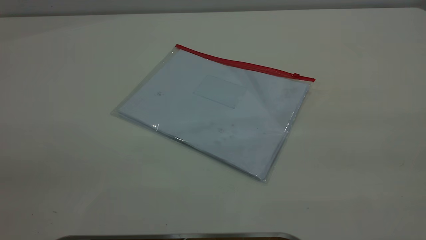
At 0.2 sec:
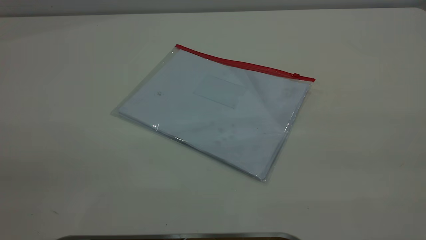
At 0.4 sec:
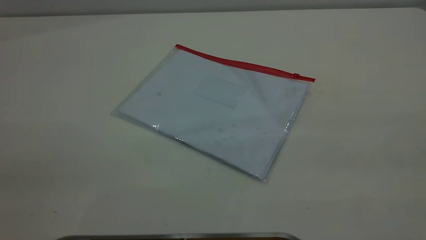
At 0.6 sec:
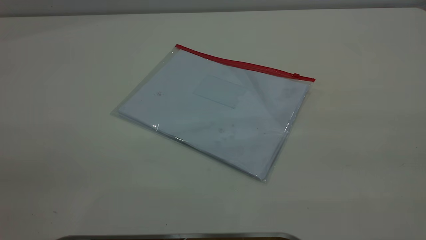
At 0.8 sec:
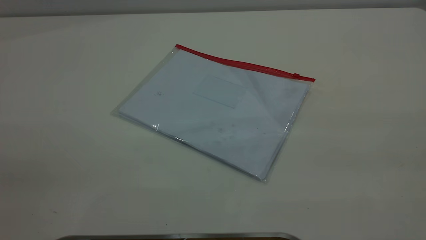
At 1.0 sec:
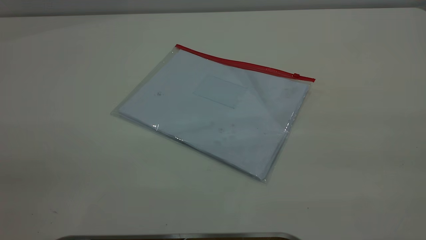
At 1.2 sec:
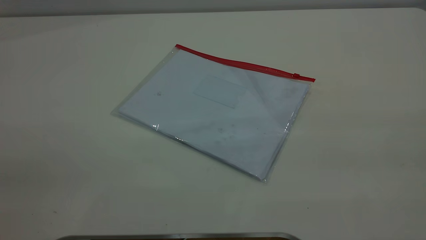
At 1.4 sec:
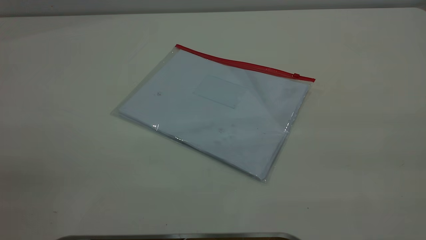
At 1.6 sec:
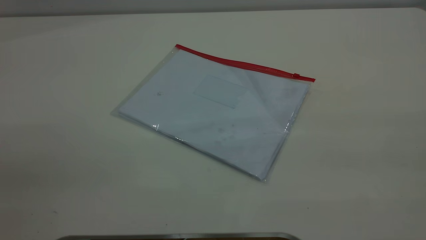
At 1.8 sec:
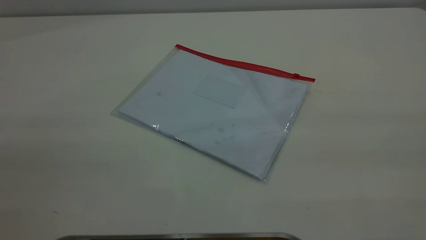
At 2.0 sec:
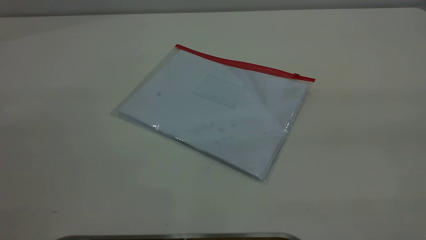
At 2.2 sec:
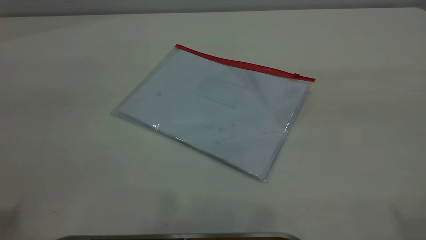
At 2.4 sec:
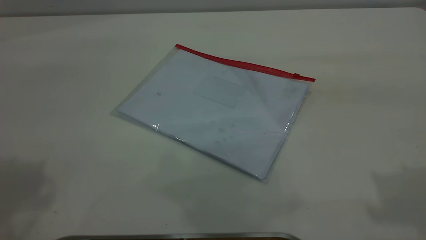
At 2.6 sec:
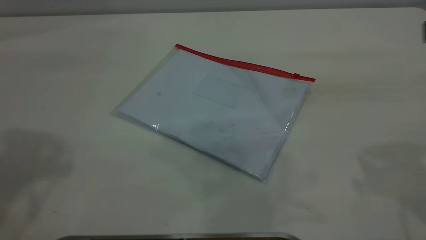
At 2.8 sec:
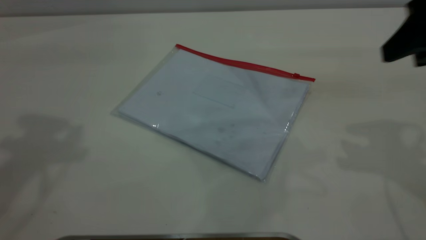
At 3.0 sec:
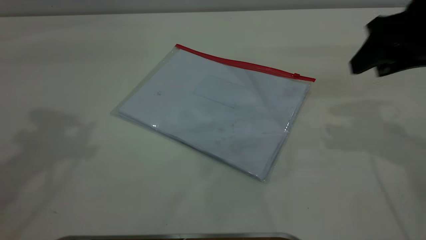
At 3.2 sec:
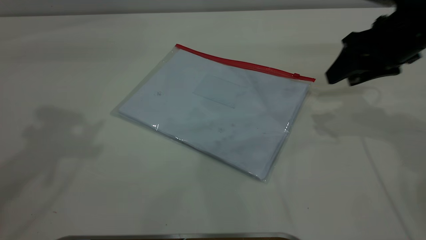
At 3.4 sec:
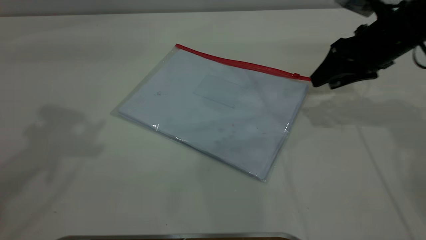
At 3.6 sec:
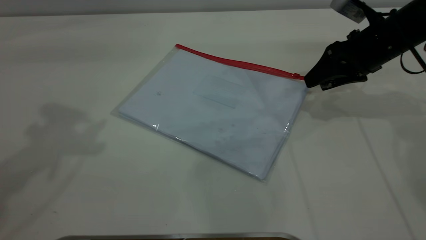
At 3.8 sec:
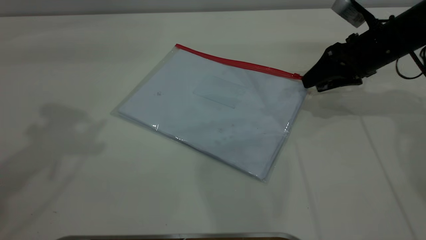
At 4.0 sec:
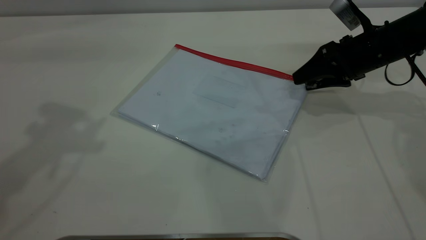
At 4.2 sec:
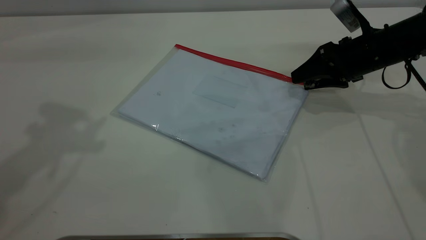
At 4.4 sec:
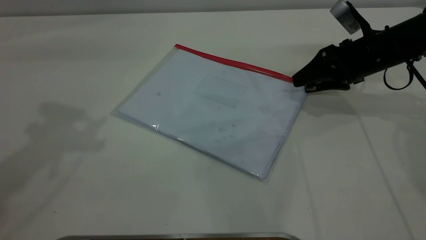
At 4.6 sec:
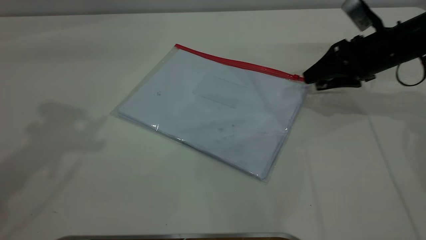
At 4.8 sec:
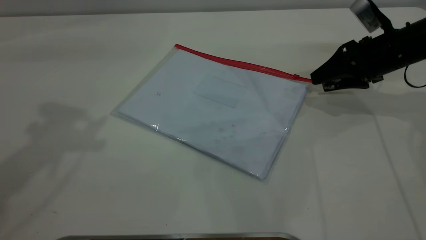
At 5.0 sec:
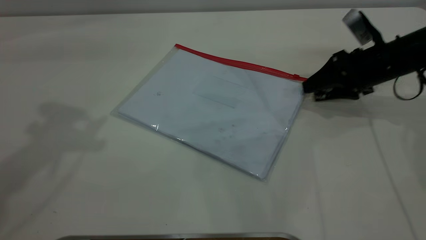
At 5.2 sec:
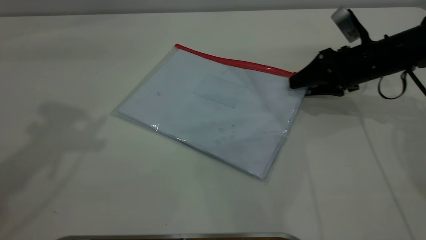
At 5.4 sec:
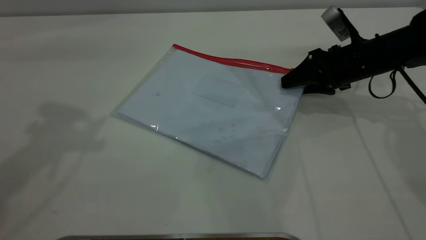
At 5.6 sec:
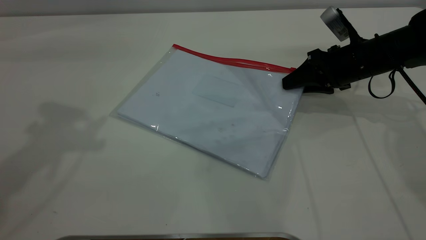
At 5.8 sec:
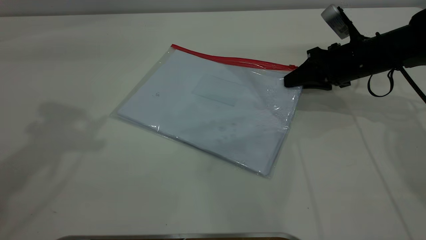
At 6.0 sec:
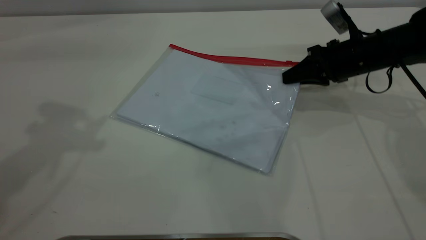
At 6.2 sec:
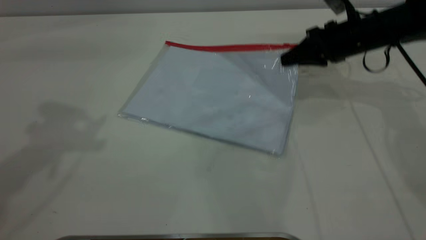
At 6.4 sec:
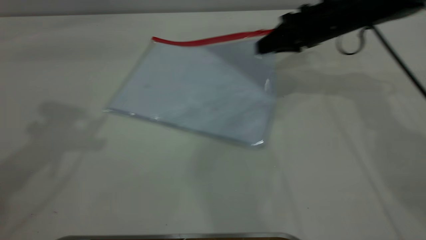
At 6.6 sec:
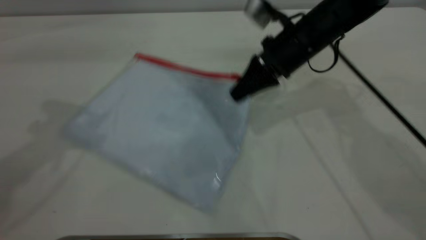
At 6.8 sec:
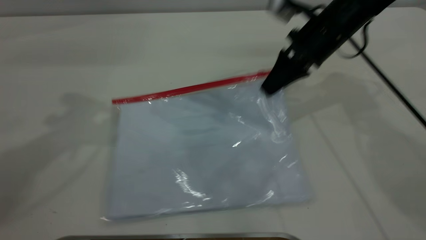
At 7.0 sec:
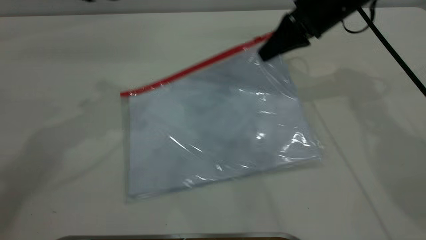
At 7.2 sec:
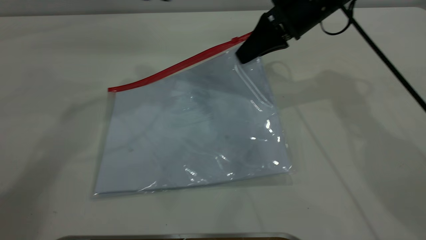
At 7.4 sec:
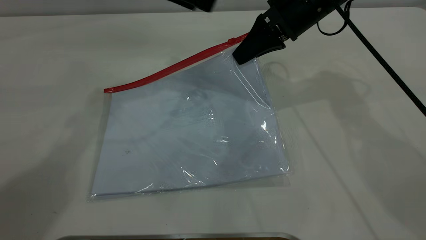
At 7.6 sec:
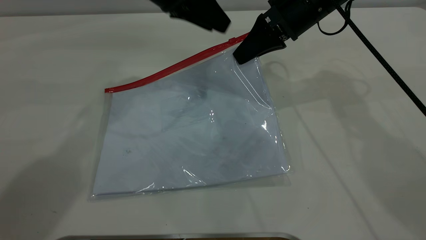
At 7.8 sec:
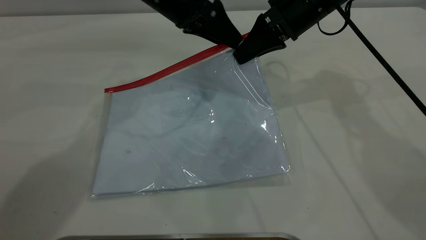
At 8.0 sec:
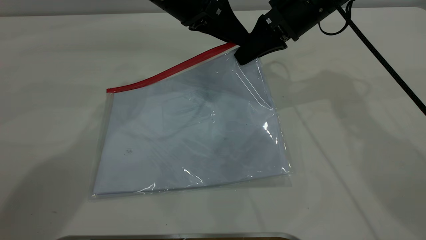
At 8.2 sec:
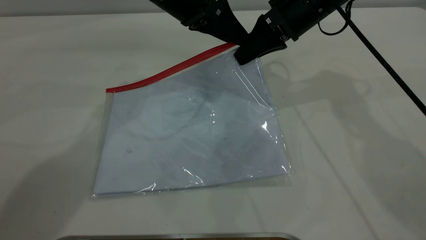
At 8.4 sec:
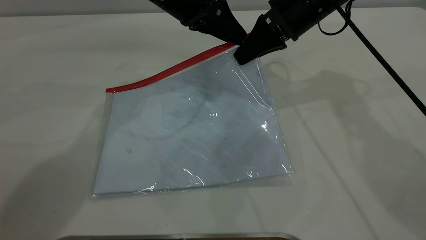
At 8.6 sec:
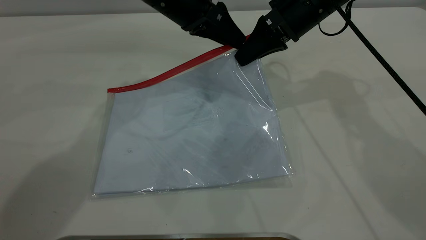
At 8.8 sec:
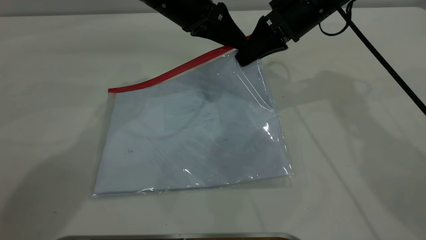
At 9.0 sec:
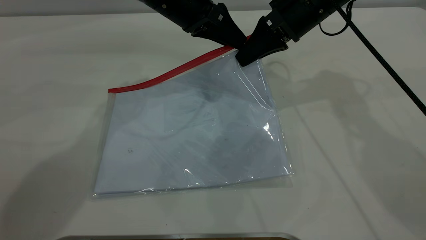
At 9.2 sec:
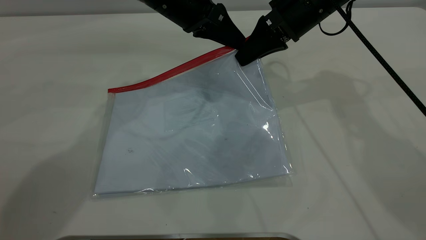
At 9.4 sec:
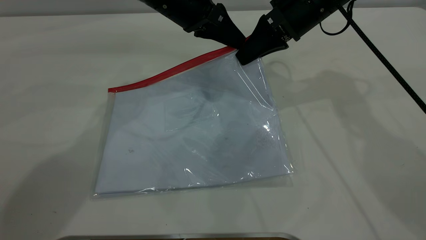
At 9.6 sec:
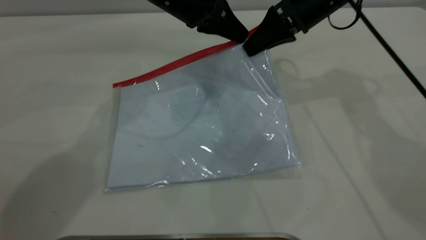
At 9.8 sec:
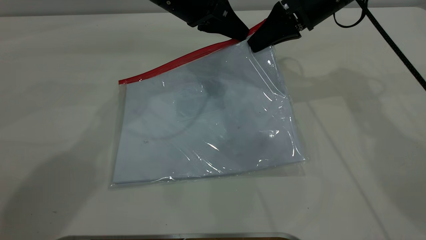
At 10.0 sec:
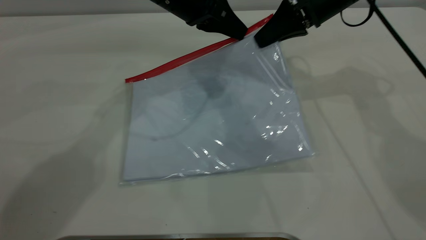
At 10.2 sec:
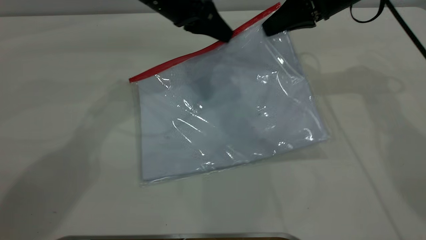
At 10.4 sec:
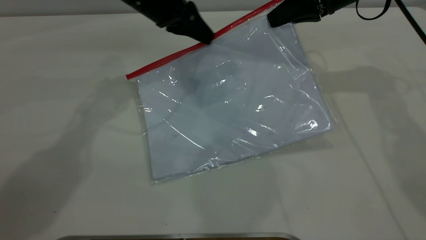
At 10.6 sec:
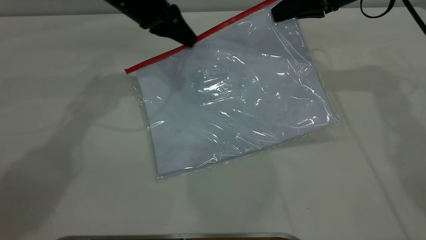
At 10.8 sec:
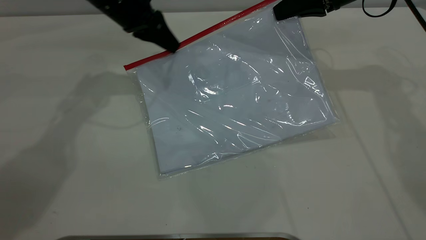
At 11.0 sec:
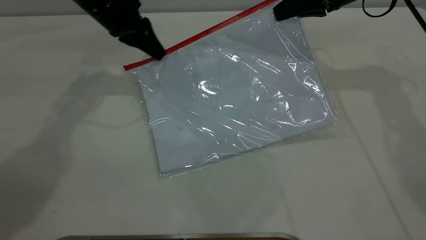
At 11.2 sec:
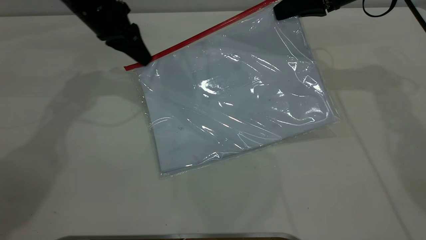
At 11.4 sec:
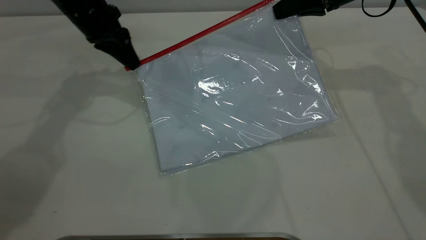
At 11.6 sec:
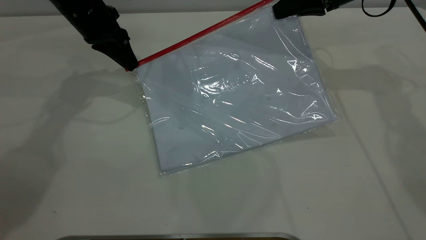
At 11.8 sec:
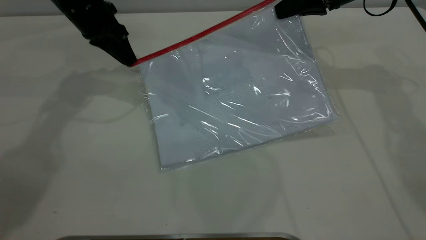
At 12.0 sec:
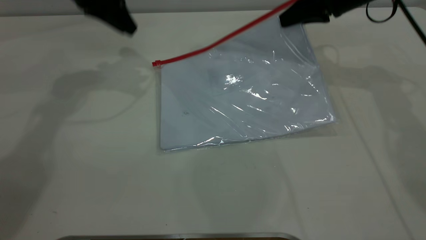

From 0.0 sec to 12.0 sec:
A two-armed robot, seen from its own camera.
Step, from 0.0 sec to 6.8 sec: Pick up the transparent plastic bag with the right gripper.
Step, from 7.2 sec to 11.8 sec: Pulling up the zipper on the transparent plastic bag with the left gripper to close it.
From 0.0 sec to 1.6 sec: Both grippers stay put.
From 1.6 sec to 3.0 sec: The right gripper is displaced forward and downward by about 35 cm.
From 3.0 sec to 4.4 sec: The right gripper heads downward and forward, covering roughly 15 cm.
From 4.4 sec to 6.0 sec: The right gripper closes.
From 6.0 sec to 7.6 sec: The left gripper travels downward, to the right and forward by roughly 30 cm. Meanwhile the right gripper swings left and right, about 10 cm each way, with 2 reversals.
From 7.6 sec to 9.0 sec: The left gripper closes.
From 9.0 sec to 10.4 sec: The right gripper moves to the right, roughly 5 cm. The left gripper heads to the left, covering roughly 5 cm, and closes up.
From 10.4 sec to 12.0 sec: The left gripper travels to the left and upward by roughly 10 cm, and opens.

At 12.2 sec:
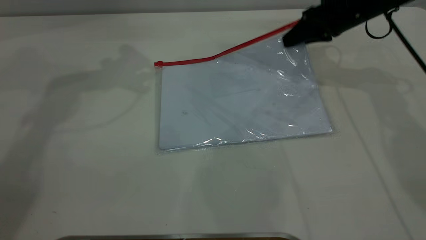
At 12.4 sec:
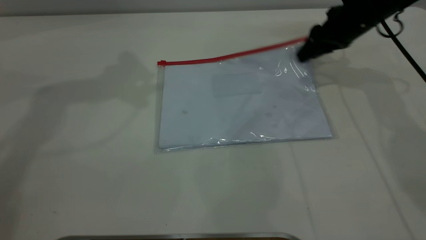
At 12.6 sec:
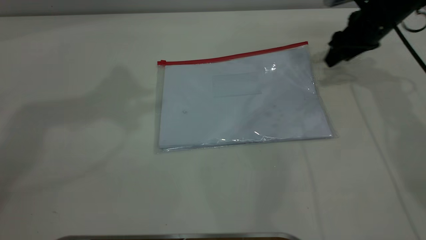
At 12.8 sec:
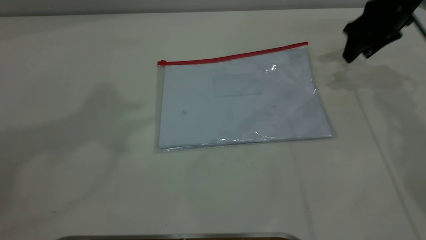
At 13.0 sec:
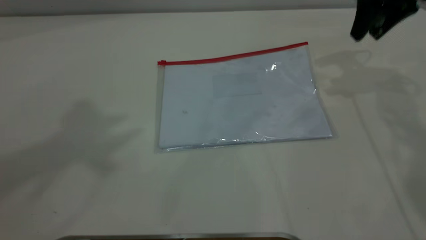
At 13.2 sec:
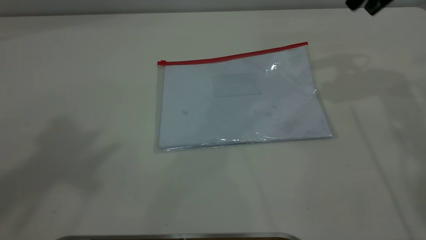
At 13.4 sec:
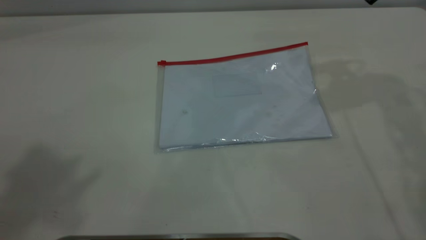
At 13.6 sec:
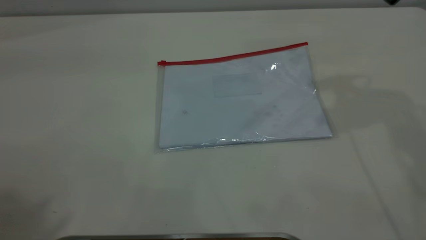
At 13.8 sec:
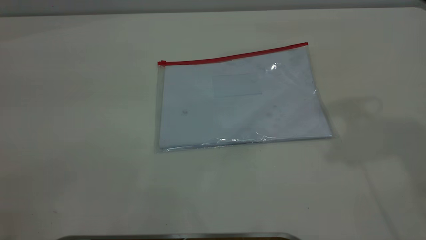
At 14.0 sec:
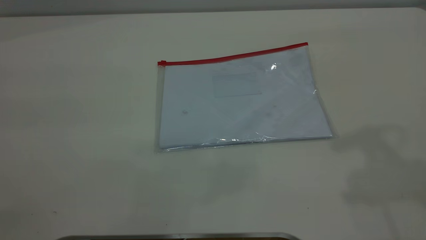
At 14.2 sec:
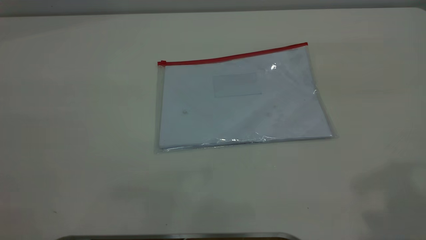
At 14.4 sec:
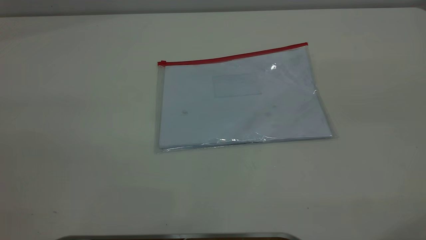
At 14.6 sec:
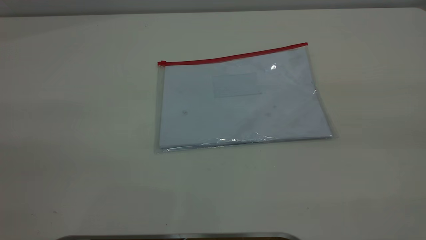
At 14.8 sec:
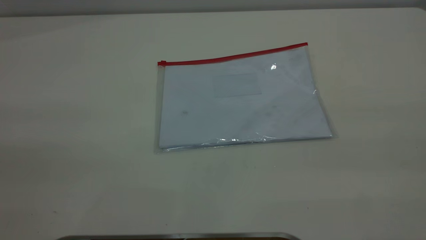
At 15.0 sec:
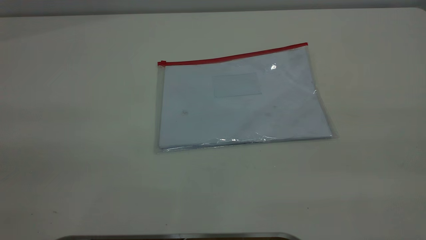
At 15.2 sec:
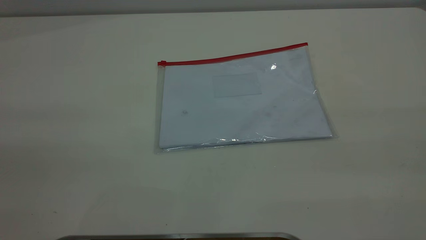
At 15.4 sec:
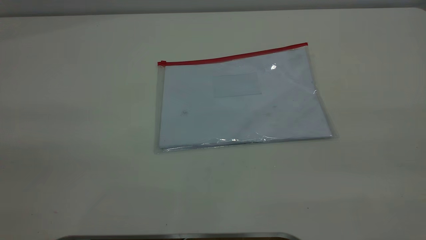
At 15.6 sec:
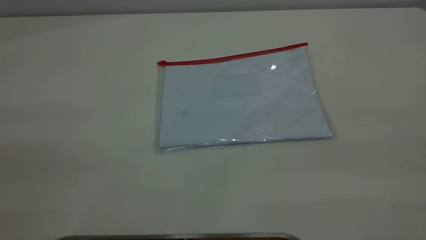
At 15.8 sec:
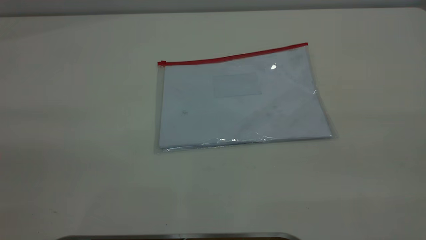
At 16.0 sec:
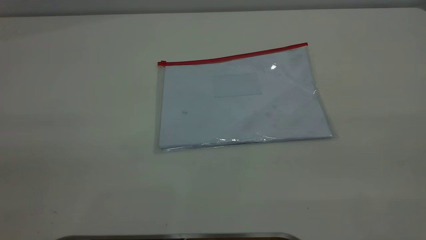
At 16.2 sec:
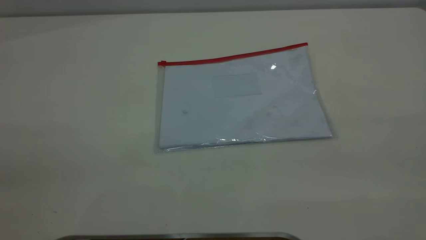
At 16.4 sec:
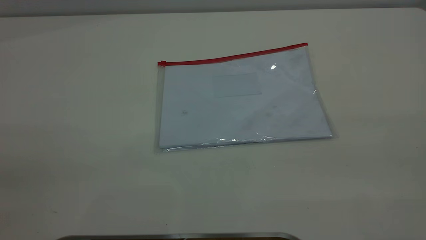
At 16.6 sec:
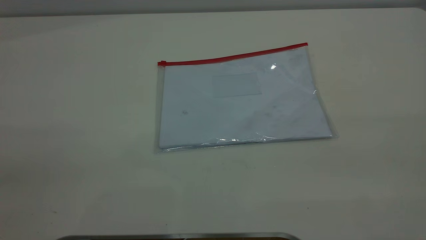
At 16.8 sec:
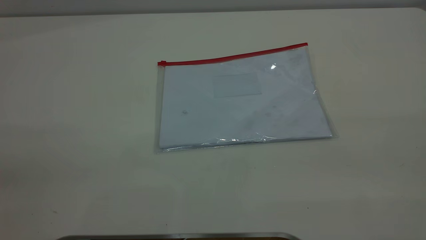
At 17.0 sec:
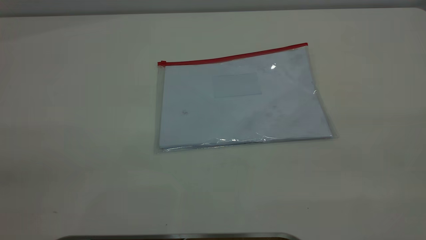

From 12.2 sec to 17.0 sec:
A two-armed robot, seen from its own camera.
Step, from 12.2 sec to 13.0 sec: Place the transparent plastic bag.
From 12.2 sec to 13.8 sec: The left gripper is displaced backward and upward by roughly 40 cm. The right gripper travels upward and backward by approximately 30 cm, and opens its fingers.
